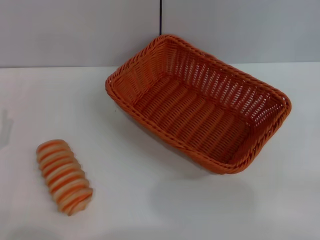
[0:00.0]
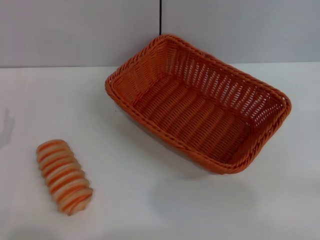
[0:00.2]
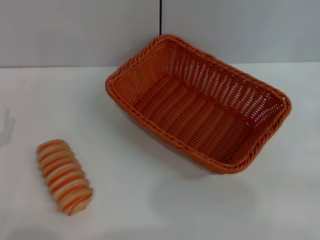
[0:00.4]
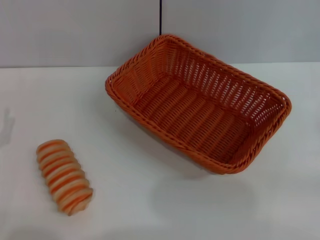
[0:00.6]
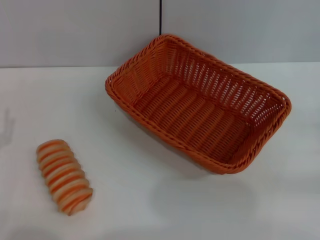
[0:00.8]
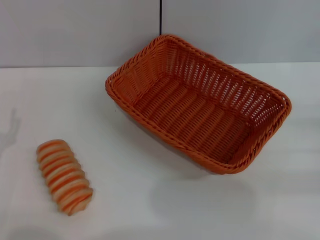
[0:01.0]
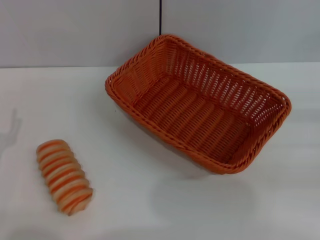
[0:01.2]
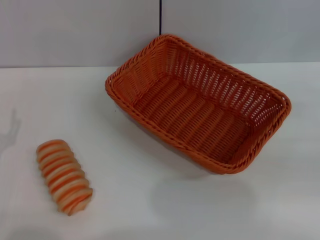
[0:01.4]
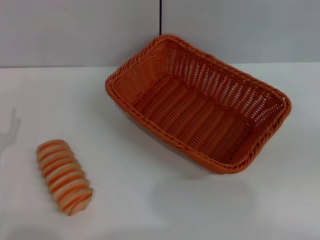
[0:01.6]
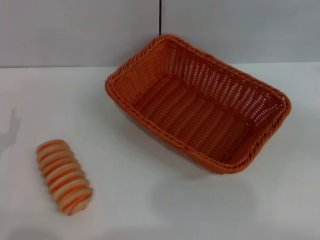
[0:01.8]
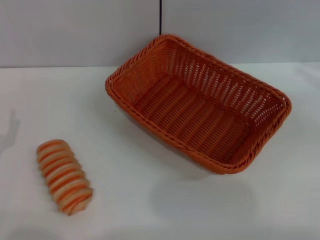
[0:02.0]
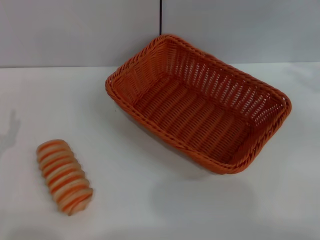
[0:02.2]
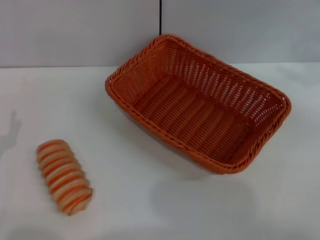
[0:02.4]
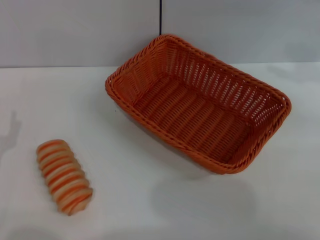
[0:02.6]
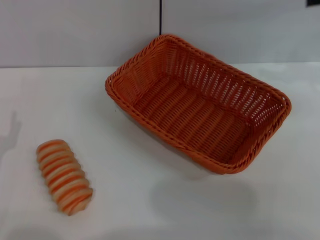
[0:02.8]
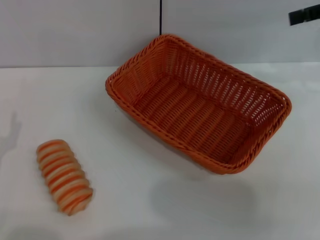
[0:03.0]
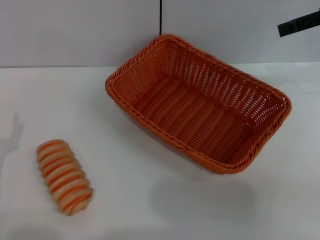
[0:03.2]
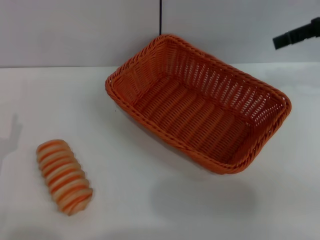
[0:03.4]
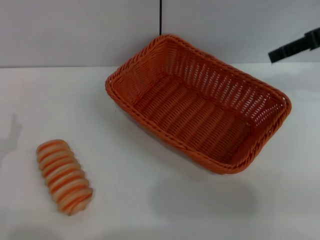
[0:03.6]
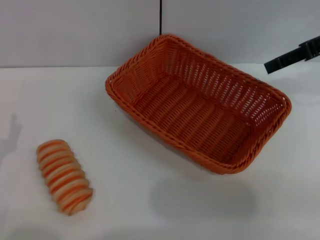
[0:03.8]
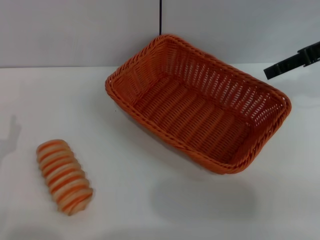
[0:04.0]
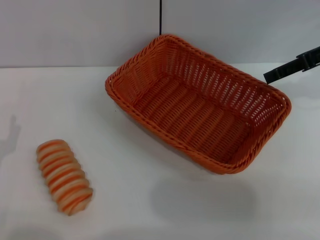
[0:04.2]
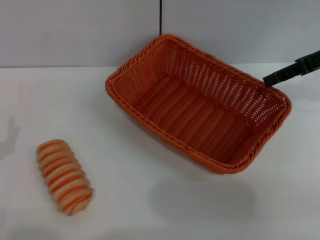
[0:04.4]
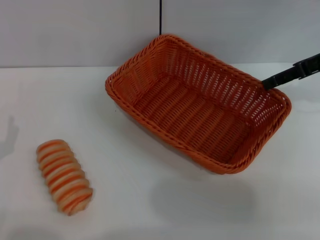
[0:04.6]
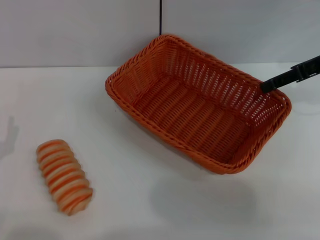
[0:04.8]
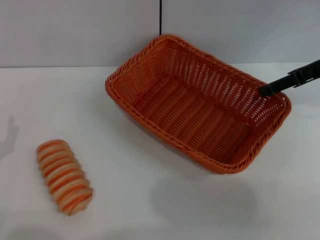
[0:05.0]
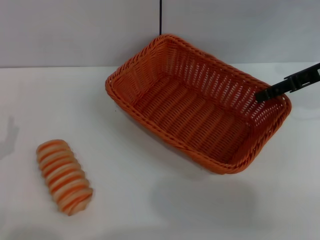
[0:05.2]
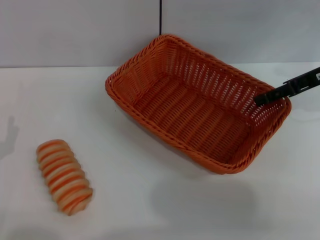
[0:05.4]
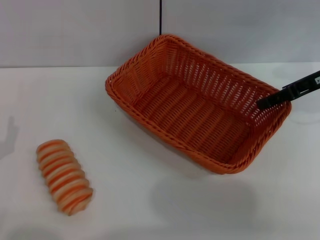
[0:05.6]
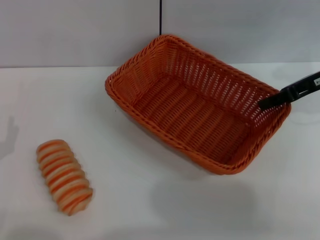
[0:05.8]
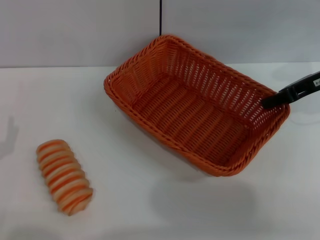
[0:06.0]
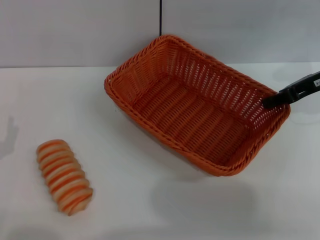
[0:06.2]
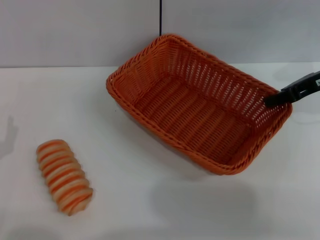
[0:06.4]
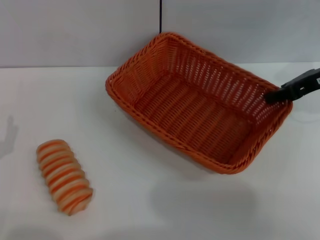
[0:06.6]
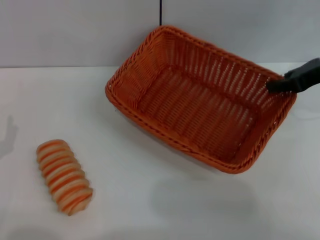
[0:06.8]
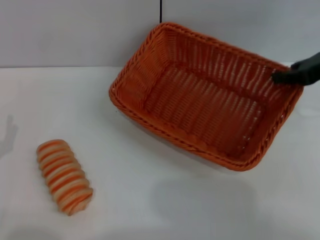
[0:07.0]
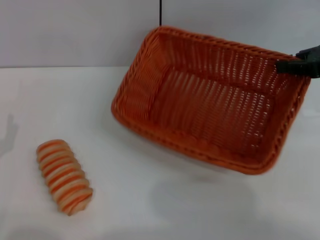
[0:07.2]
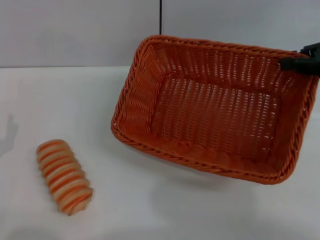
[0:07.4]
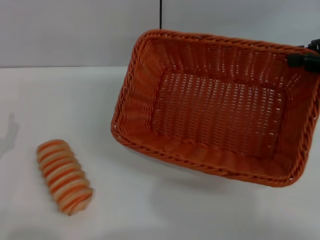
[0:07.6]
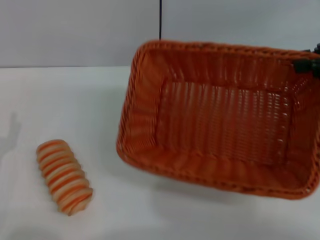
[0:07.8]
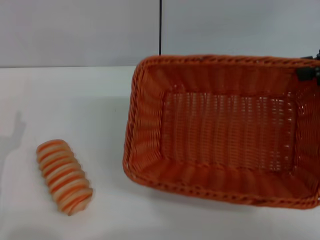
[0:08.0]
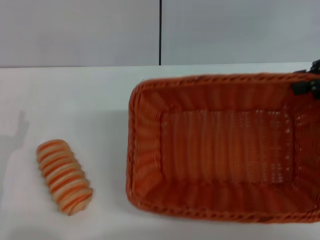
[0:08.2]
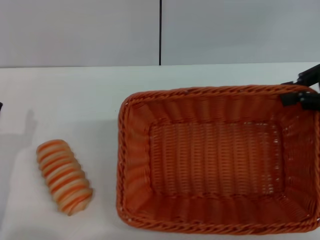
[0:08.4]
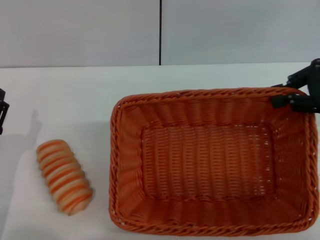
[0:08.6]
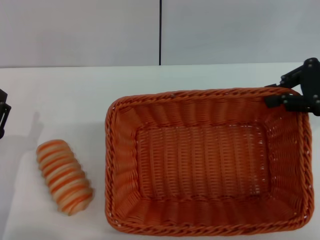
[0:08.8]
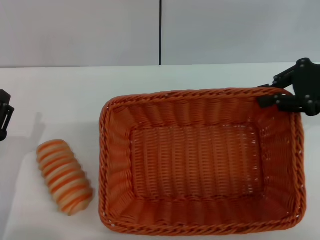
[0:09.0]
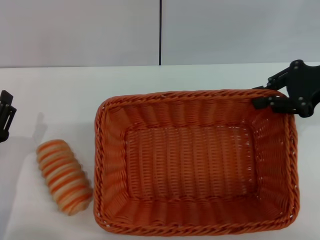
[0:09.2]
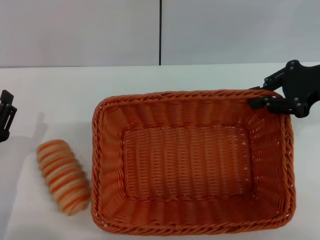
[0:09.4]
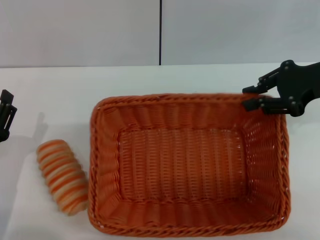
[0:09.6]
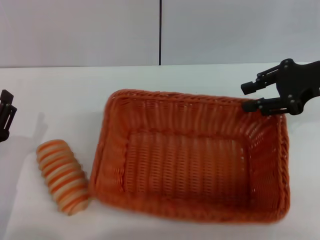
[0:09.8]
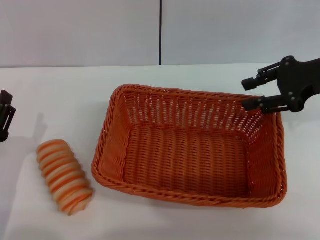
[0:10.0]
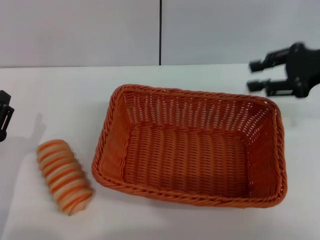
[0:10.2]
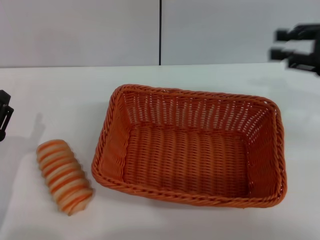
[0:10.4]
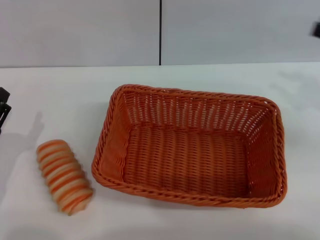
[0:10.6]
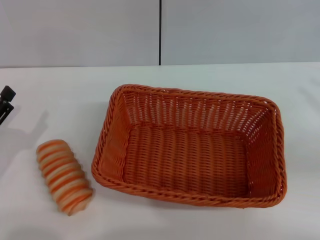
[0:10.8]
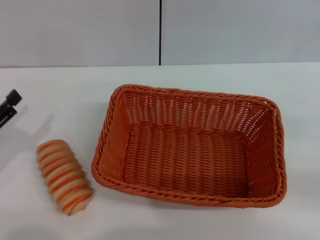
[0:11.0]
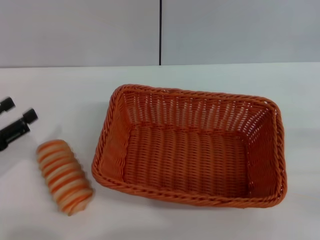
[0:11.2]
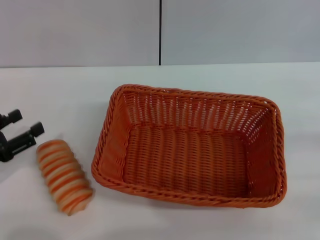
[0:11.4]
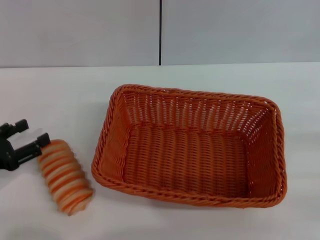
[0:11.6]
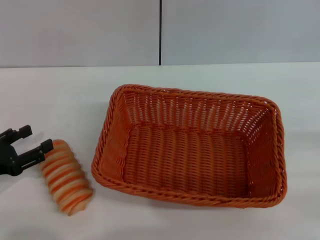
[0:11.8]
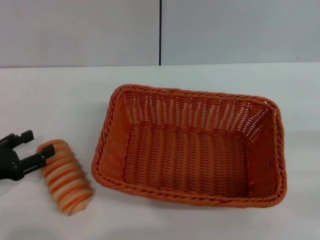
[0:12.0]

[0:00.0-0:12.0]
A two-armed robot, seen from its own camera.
Step, 0.0 to 7.4 s: Pick up the light basket with the right gripper.
Step, 7.6 to 10.2 s: Place the light basket in the center of view with the right gripper.
1.6 to 3.0 s: The right gripper moves forward, to the left and upward, roughly 20 cm, and opens its fingers.
3.0 to 4.4 s: The right gripper is displaced downward by about 5 cm.
4.4 to 6.0 s: The right gripper closes its fingers.
6.0 to 7.6 s: The right gripper heads upward and backward, covering some 10 cm.
9.0 to 10.4 s: The right gripper opens.
10.4 to 12.0 s: The left gripper moves to the left, some 5 cm. The right gripper travels backward, downward and to the right by some 20 cm.

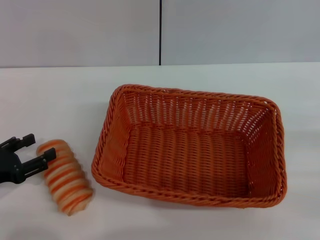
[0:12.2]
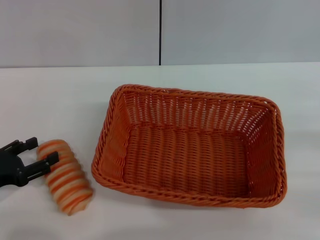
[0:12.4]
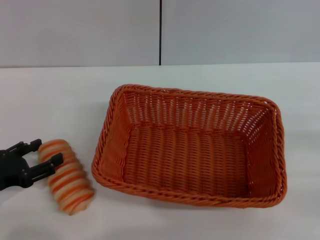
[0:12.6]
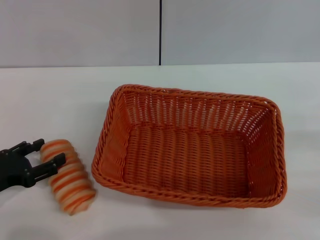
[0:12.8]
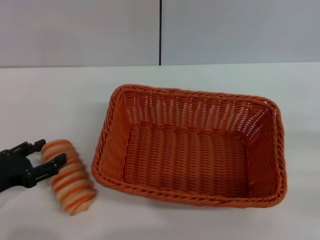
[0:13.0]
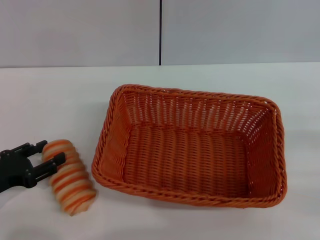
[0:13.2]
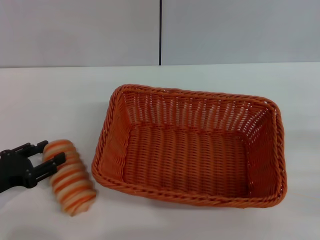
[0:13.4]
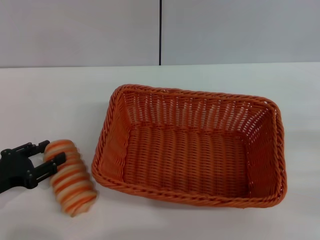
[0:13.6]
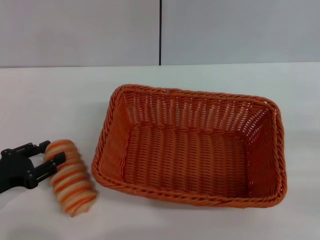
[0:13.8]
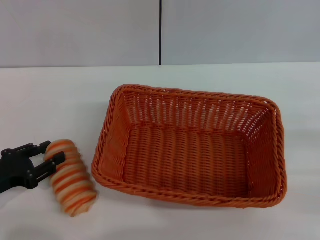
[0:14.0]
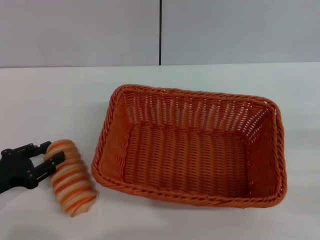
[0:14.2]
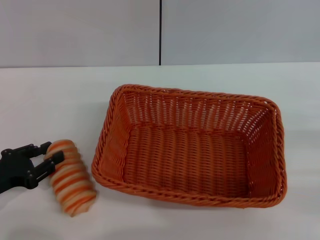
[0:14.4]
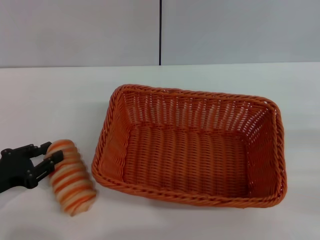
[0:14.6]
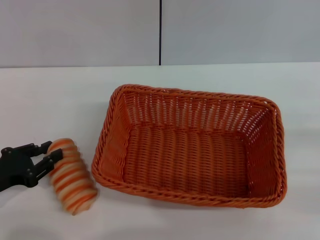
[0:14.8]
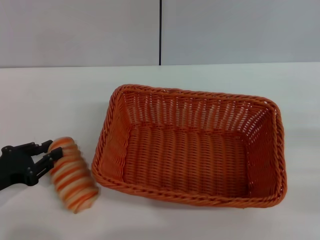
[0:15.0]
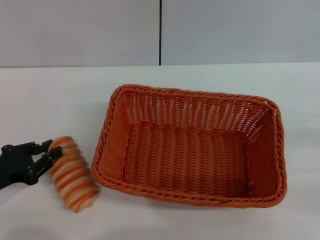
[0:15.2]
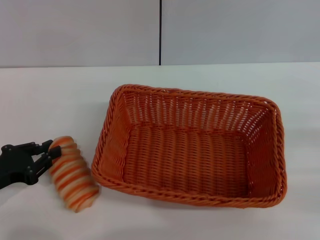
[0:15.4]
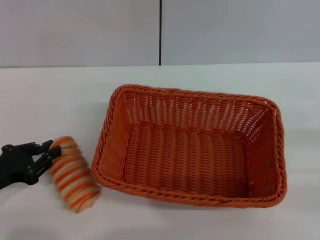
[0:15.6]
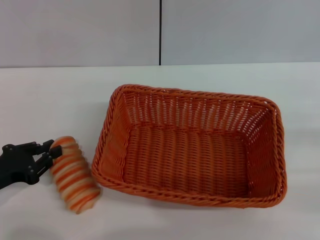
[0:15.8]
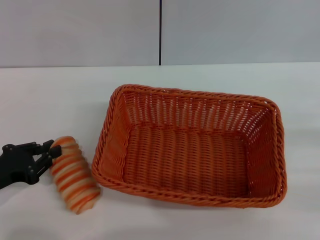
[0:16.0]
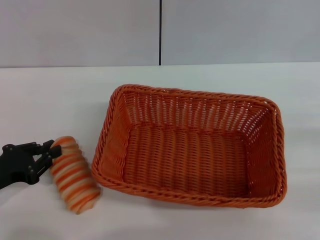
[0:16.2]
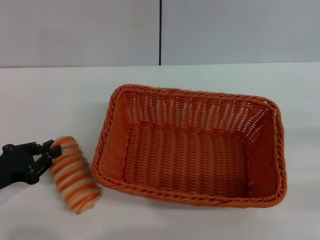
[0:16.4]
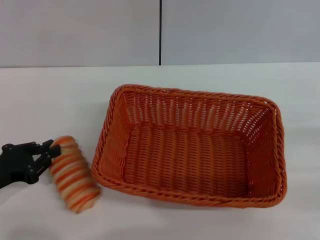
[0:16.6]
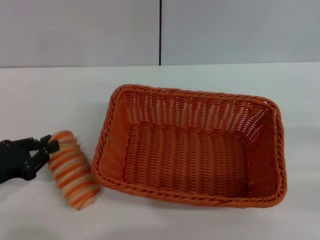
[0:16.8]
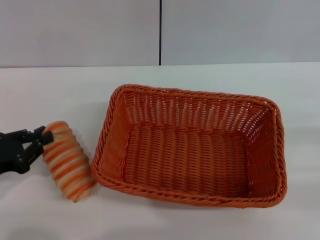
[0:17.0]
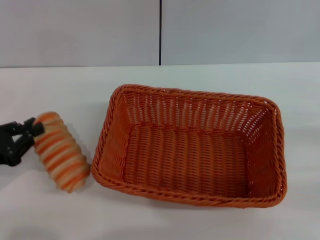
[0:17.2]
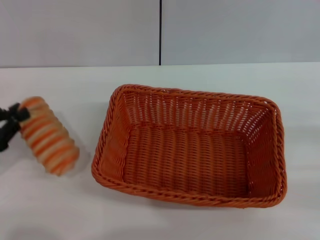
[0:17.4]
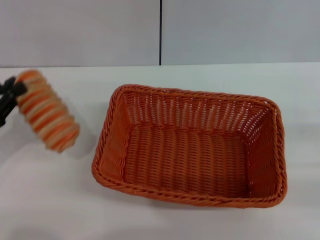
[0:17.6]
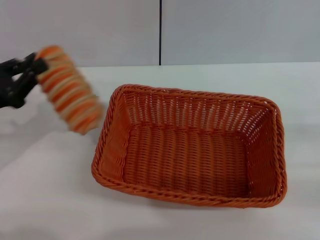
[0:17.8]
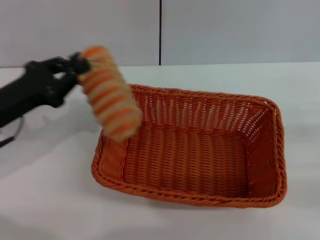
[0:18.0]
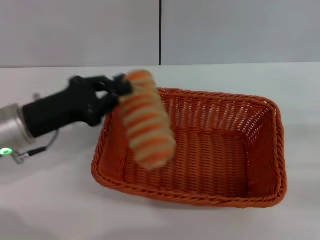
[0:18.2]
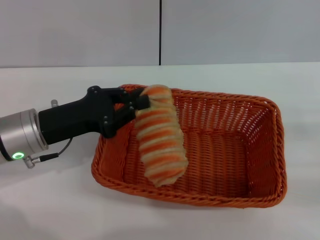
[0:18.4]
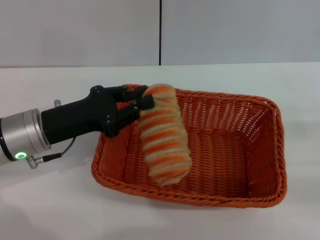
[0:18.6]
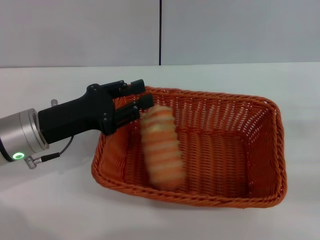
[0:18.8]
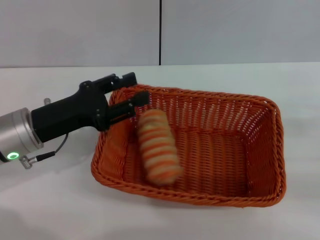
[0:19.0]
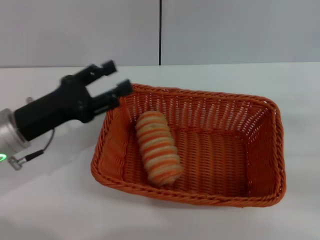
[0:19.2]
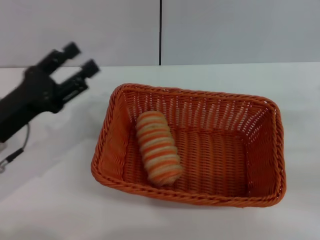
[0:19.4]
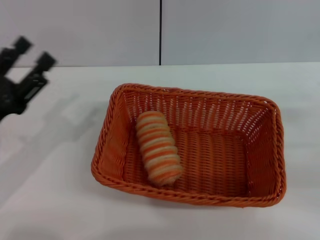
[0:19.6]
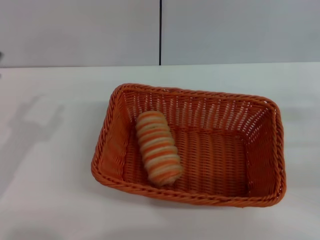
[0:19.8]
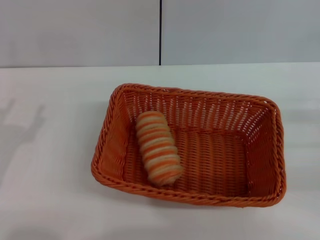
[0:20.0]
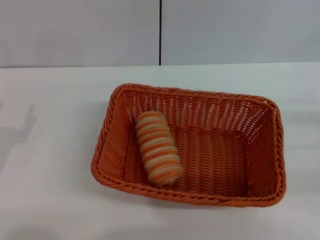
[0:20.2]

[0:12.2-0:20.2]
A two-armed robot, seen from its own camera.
Step, 12.2 to 17.4 s: Pick up the long bread with the left gripper.
Step, 17.6 to 19.0 s: Place the long bread into the light basket with the left gripper.
12.2 to 13.8 s: The left gripper closes up.
13.8 to 15.4 s: The left gripper closes its fingers.
15.4 to 17.0 s: The grippers stay close to where they were, moving slightly.
17.0 to 18.6 s: The left gripper is displaced to the right and forward by approximately 15 cm.
18.6 to 20.2 s: The left gripper heads backward and to the left, covering approximately 15 cm, and opens its fingers.

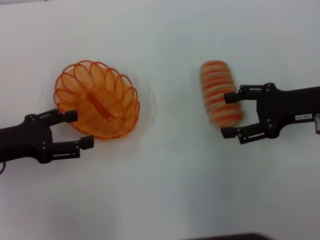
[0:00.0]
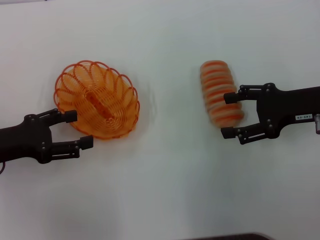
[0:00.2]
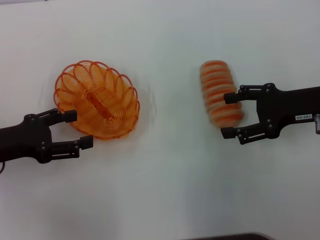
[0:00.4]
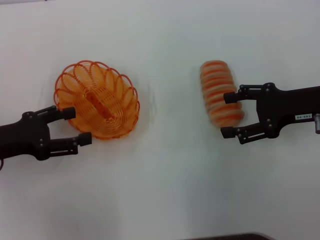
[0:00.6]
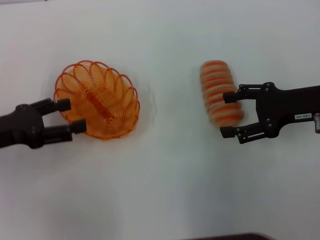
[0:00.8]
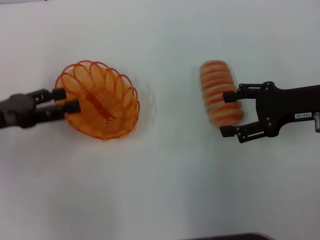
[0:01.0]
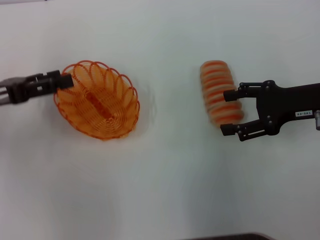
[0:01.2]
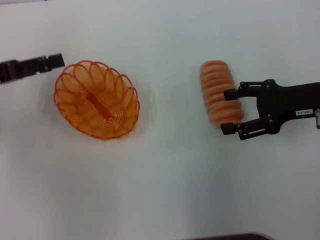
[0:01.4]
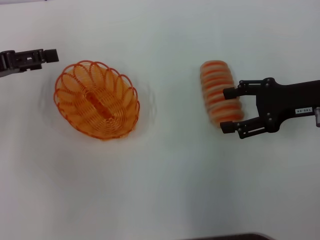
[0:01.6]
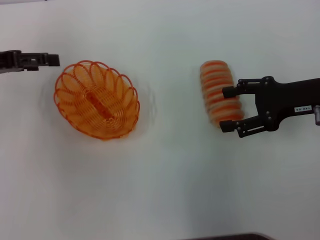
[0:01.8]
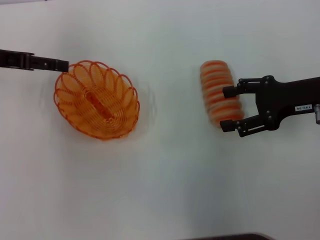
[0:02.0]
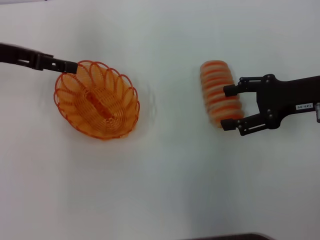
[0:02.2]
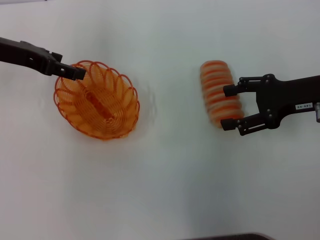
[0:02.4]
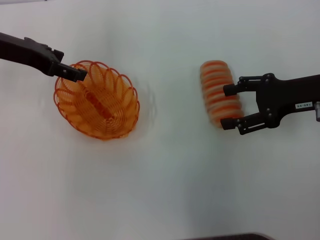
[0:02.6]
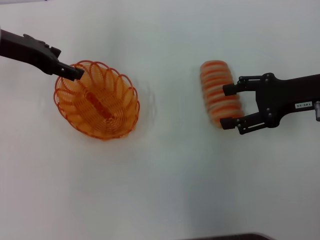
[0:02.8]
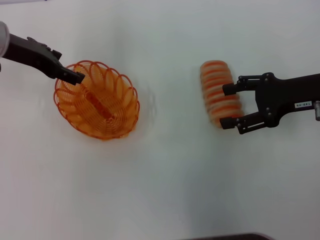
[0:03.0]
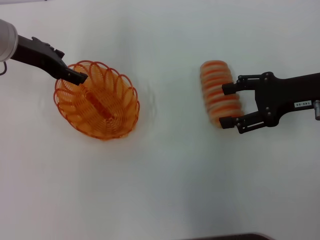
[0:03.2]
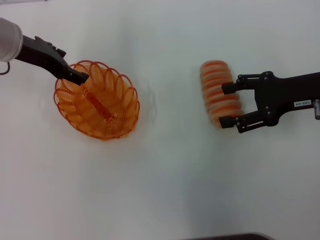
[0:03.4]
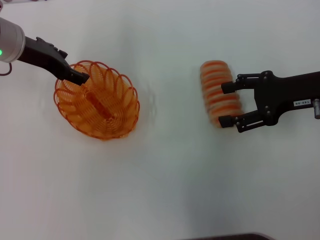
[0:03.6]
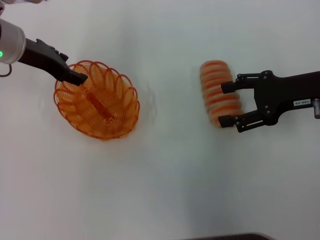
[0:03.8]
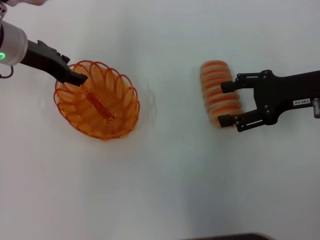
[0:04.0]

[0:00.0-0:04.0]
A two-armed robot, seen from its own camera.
0.0 to 1.4 s: The left gripper travels forward and upward by roughly 10 cm.
1.4 to 2.6 s: The left gripper moves forward and to the right, about 10 cm.
2.6 to 4.0 s: The grippers move only a little.
